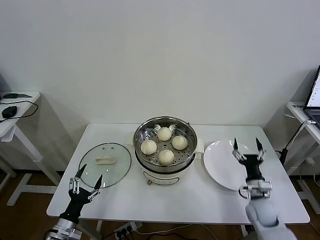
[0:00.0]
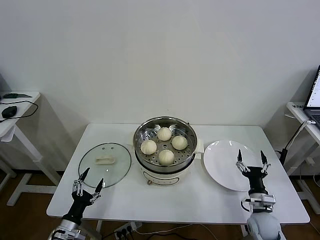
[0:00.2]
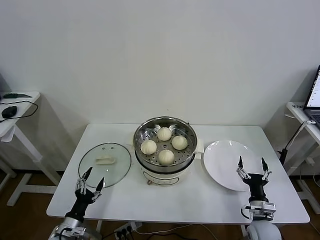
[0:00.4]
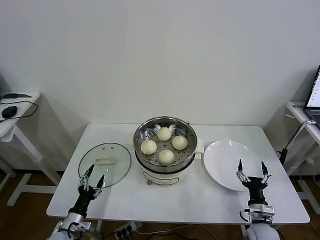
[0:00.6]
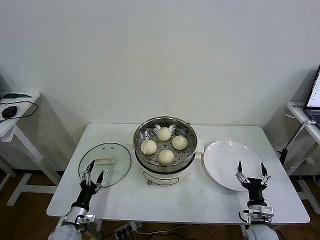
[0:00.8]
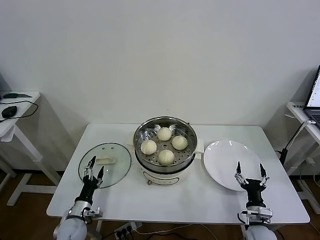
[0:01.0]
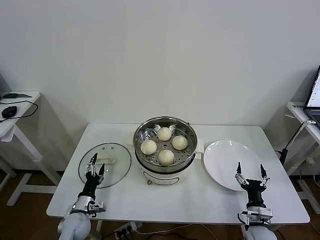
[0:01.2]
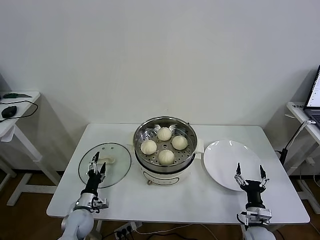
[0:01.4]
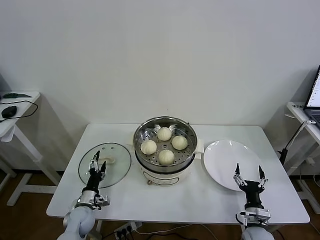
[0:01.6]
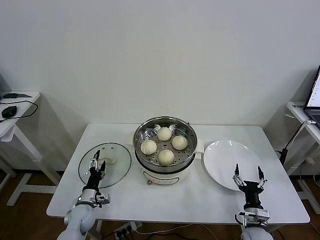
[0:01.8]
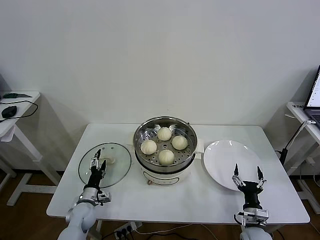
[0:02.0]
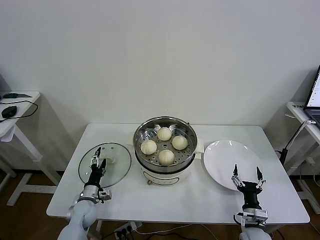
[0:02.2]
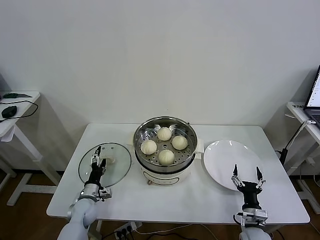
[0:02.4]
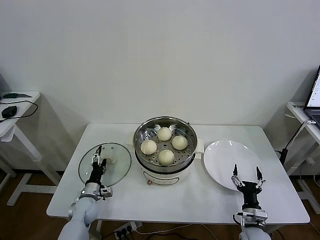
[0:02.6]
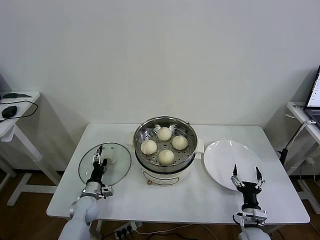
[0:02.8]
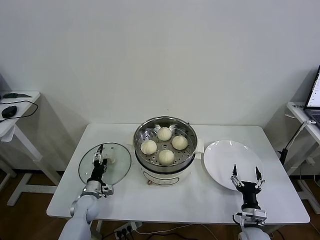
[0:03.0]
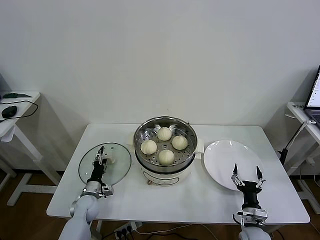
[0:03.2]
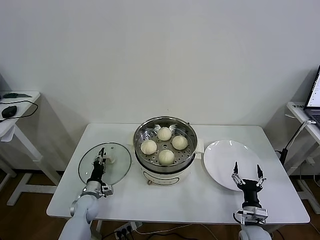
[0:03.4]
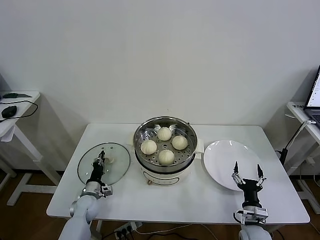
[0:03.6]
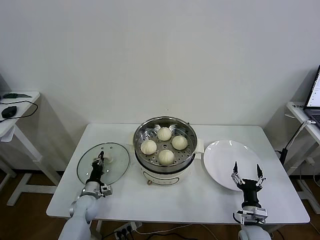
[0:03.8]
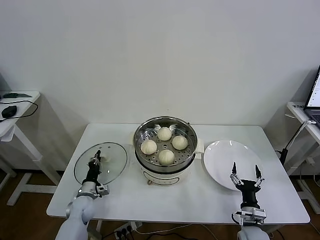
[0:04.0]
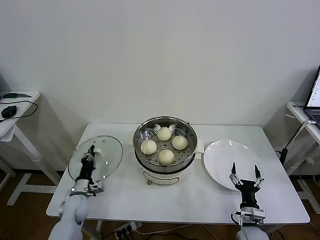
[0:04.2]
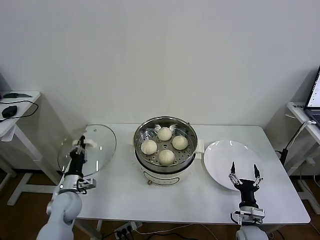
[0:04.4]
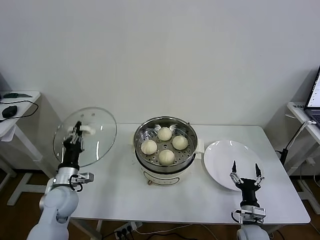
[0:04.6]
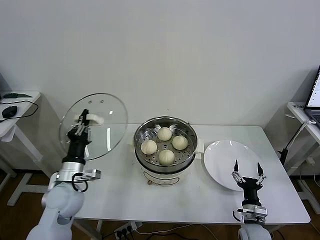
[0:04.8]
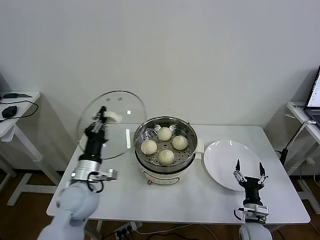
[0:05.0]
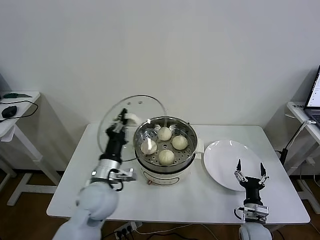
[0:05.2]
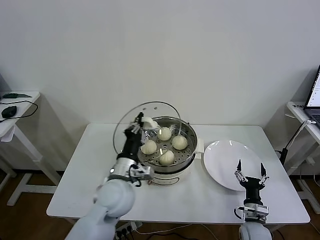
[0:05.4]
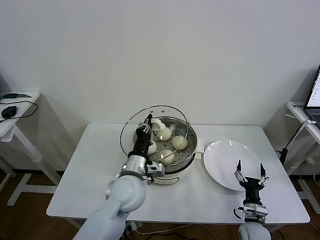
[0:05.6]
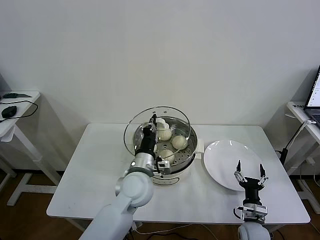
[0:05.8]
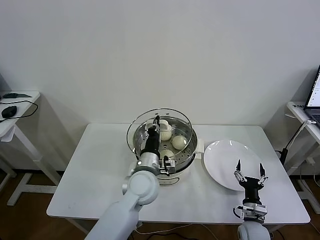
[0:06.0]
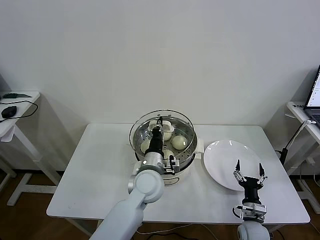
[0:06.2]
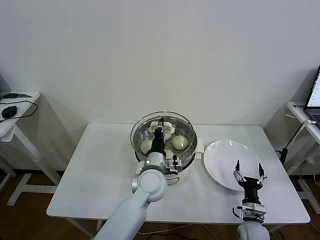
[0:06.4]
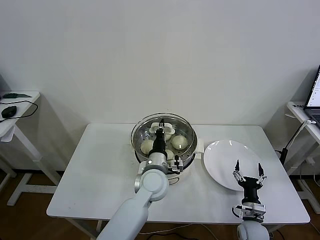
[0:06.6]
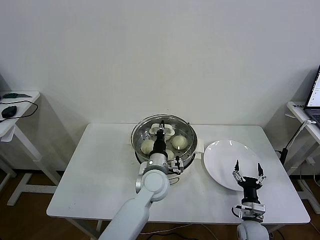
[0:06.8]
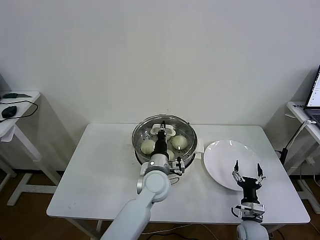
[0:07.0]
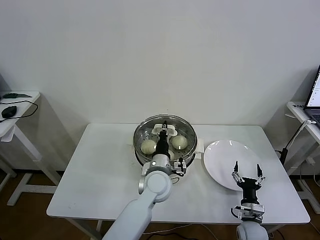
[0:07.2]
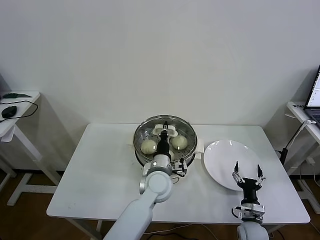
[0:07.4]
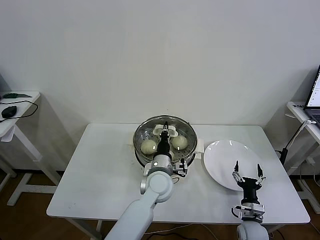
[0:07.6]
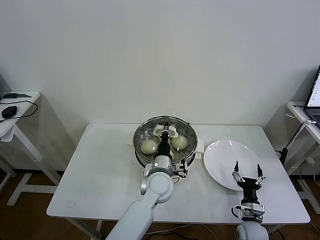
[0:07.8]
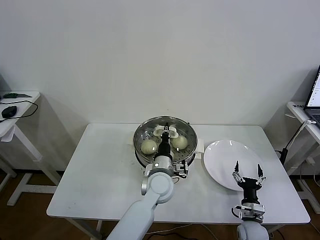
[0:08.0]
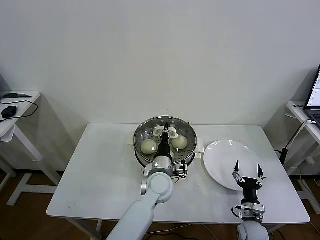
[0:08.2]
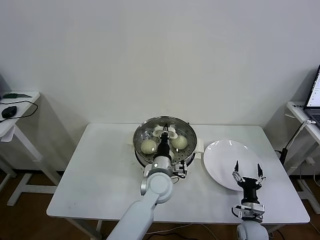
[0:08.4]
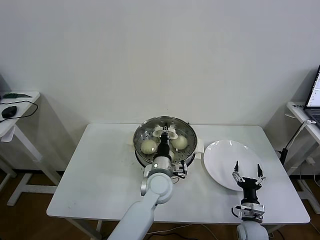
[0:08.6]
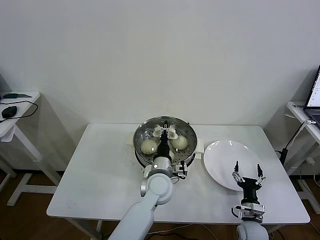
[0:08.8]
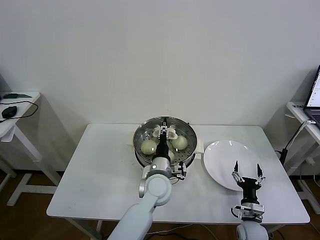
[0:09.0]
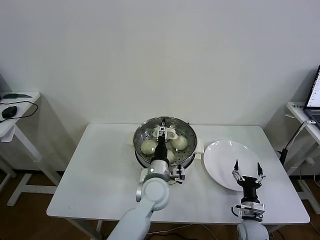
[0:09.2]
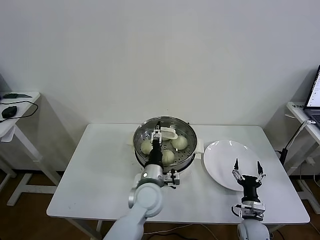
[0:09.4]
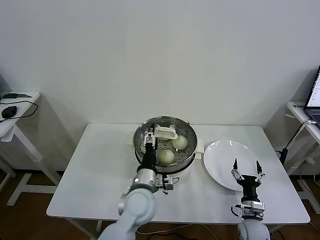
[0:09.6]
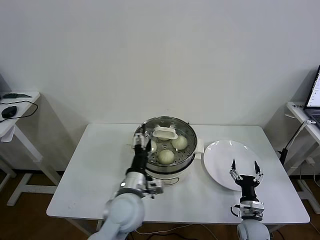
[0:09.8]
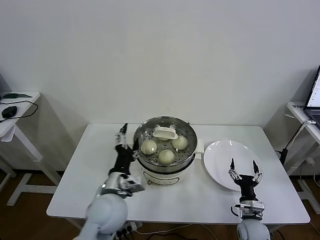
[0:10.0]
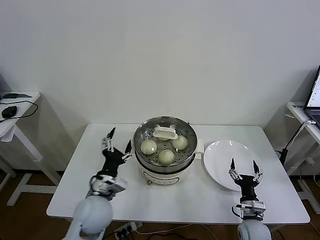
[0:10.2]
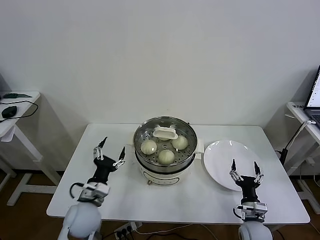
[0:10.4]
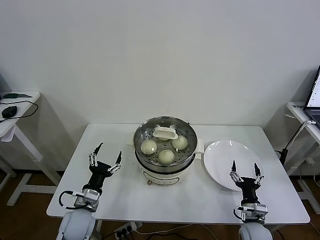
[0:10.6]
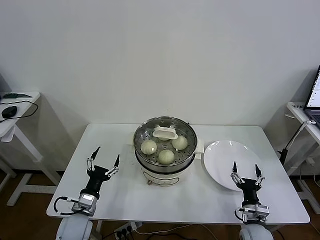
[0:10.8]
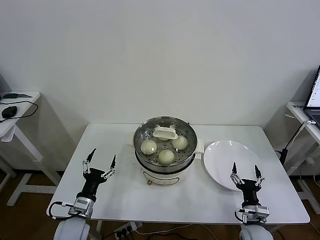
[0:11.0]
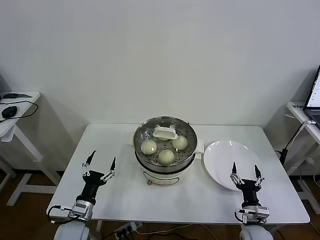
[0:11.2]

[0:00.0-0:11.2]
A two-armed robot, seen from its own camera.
Task of the whole recording: take steamed baozi put them in steamer then cover it.
Step, 0:00.0 to 0:03.8: Grasp the pot lid with left gripper.
Step, 0:04.0 to 0:08.8: Place the pot lid on the steamer with left gripper.
0:00.0 to 0:01.6: The right gripper heads backward, covering some 10 cm. Meanwhile the left gripper moves forward and downward, about 15 cm.
0:01.6 to 0:03.2: The left gripper travels forward by roughly 5 cm.
0:03.2 to 0:04.8: The left gripper shifts about 20 cm upward, and closes up.
0:04.8 to 0:06.4: The left gripper goes about 25 cm to the right.
0:06.4 to 0:08.0: The grippers make only small movements.
0:08.0 to 0:09.6: The left gripper goes approximately 10 cm backward and to the left, and opens its fingers.
0:09.6 to 0:11.2: The left gripper is displaced to the left and downward by some 25 cm.
